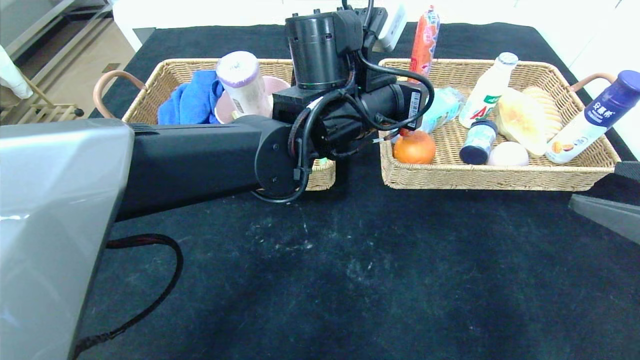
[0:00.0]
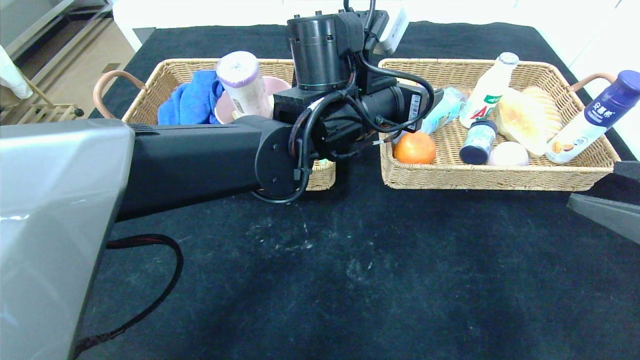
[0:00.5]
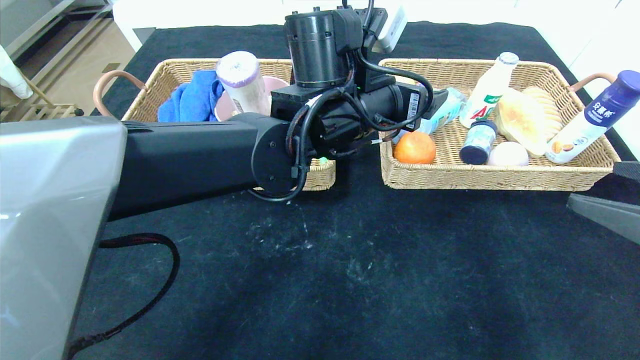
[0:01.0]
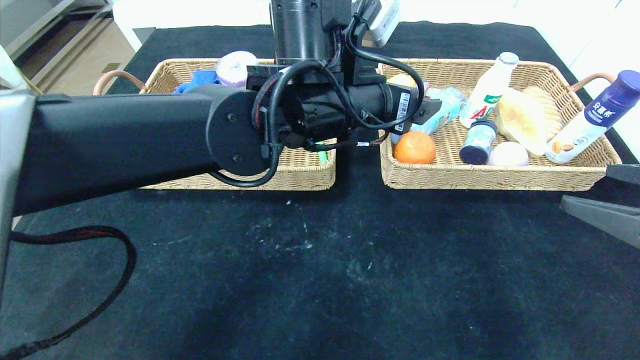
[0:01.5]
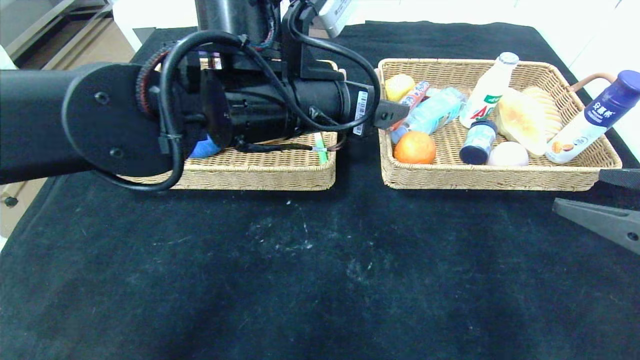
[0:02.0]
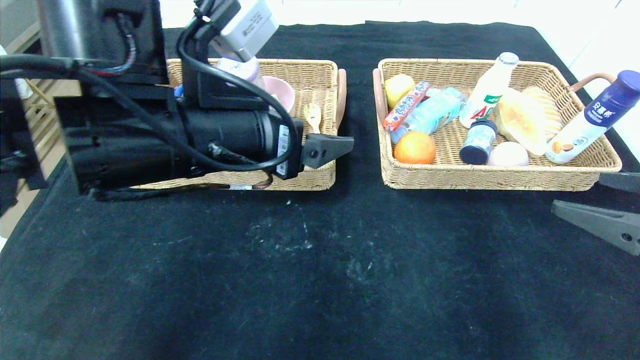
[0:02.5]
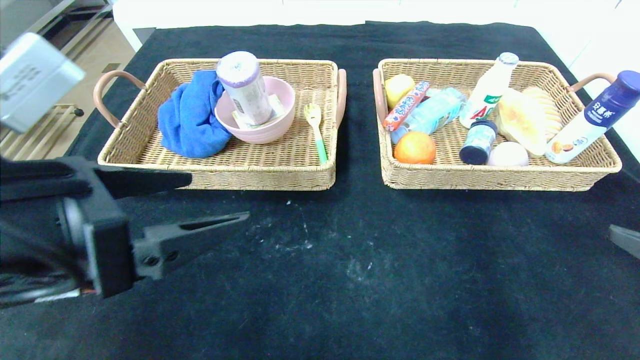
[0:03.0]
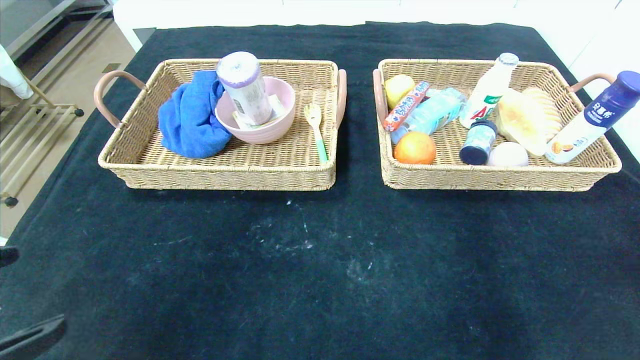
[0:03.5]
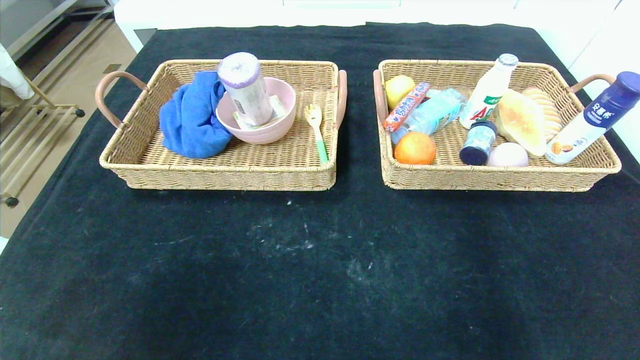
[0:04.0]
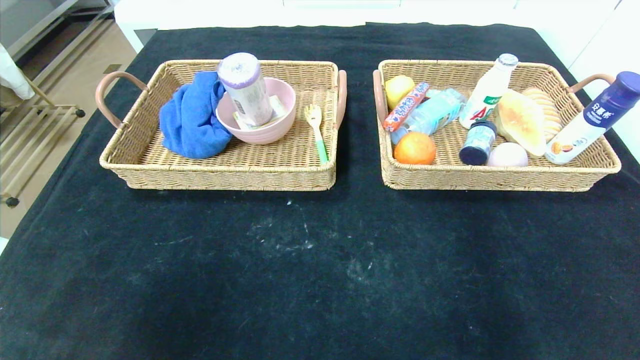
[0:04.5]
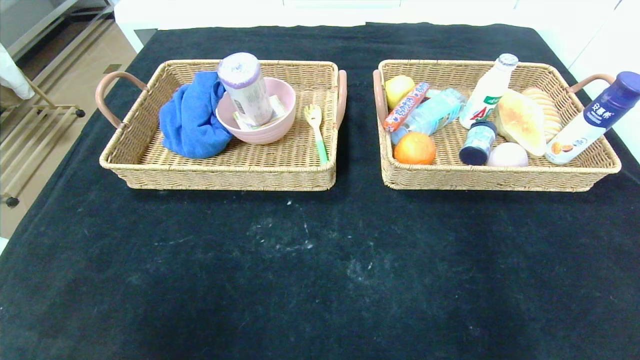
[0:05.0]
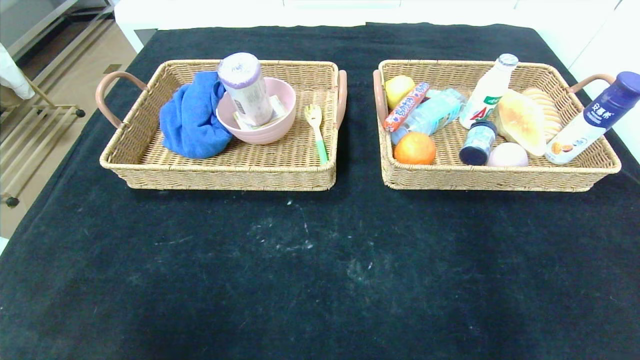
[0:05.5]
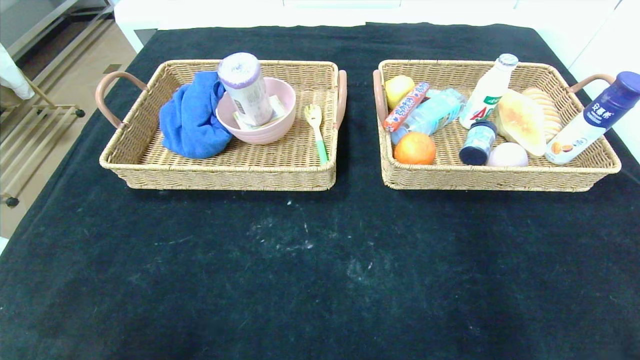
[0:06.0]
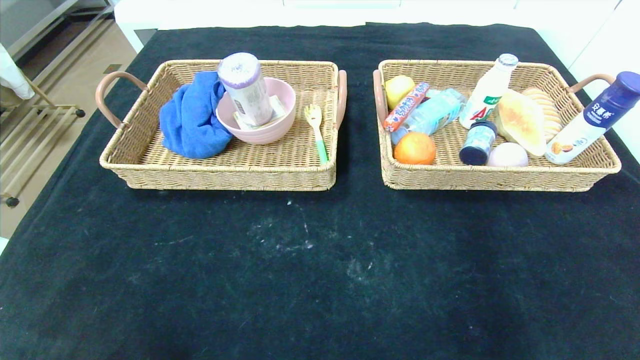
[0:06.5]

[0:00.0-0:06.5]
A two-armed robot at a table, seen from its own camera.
0:00.0 to 0:02.0: The left gripper shifts approximately 10 cm to the left and backward, and opens.
0:02.0 to 0:04.5: The right gripper is displaced backward by about 25 cm, while the left gripper travels backward and to the left by roughly 40 cm.
